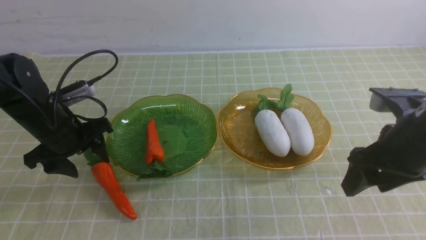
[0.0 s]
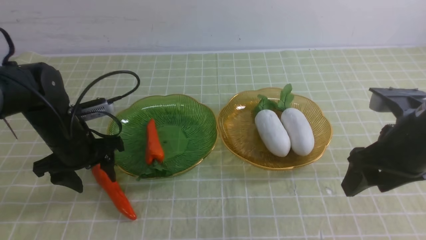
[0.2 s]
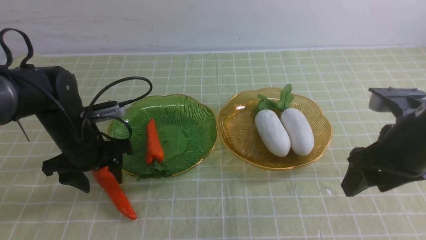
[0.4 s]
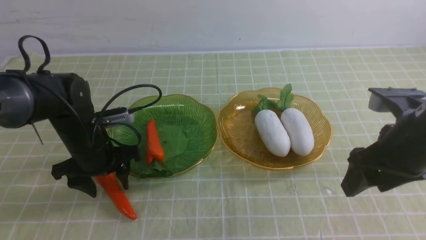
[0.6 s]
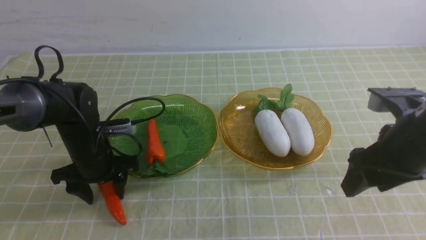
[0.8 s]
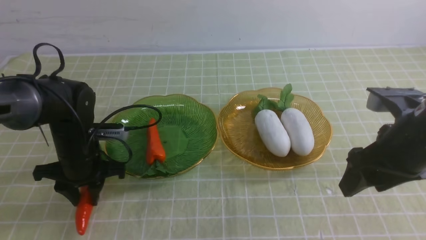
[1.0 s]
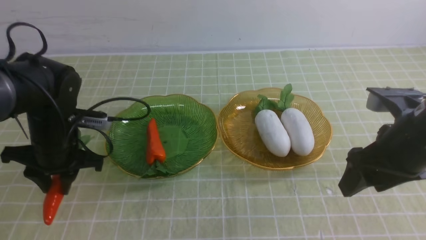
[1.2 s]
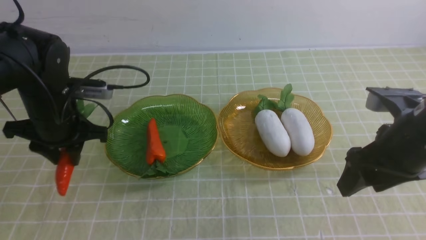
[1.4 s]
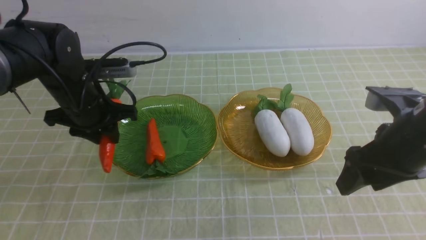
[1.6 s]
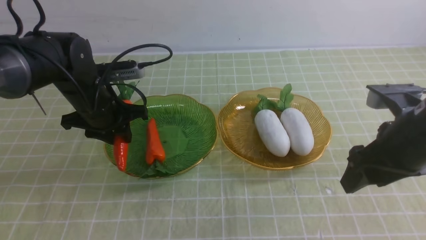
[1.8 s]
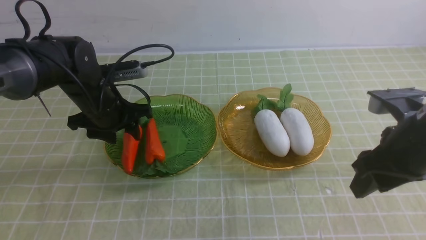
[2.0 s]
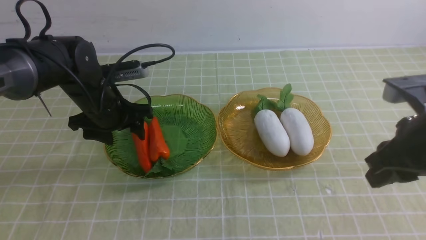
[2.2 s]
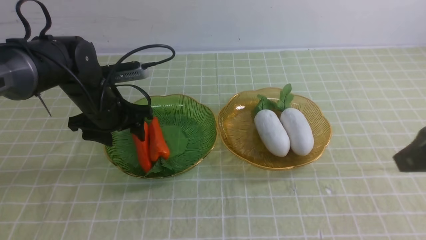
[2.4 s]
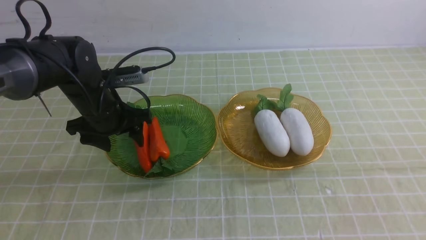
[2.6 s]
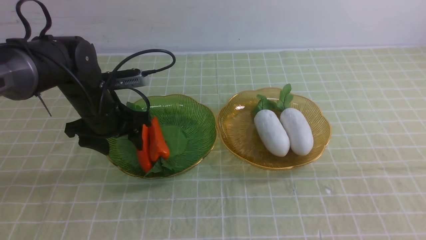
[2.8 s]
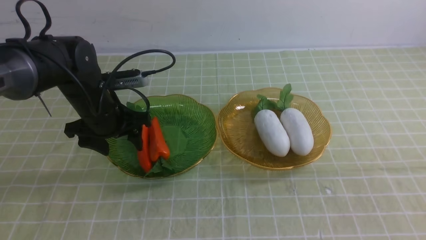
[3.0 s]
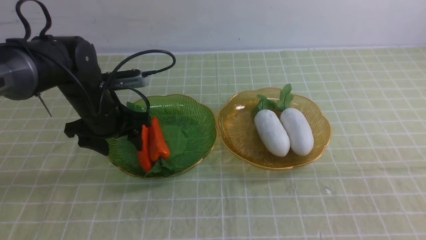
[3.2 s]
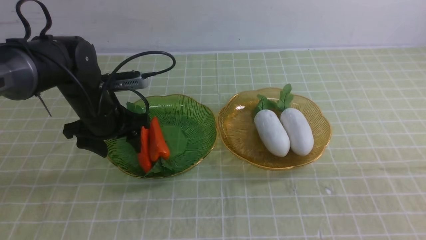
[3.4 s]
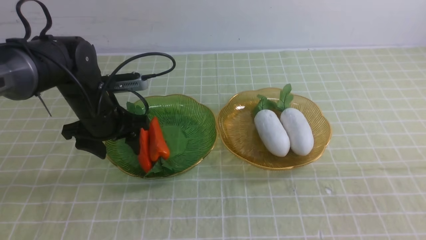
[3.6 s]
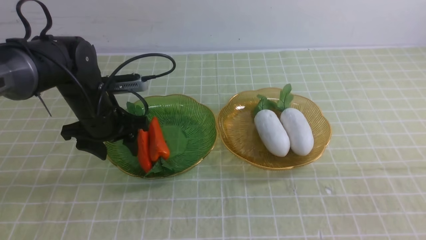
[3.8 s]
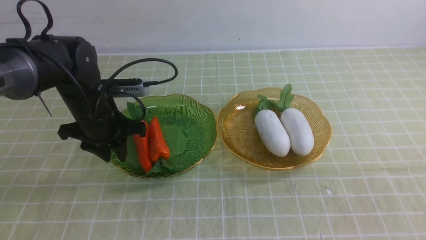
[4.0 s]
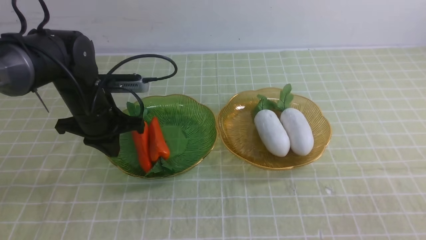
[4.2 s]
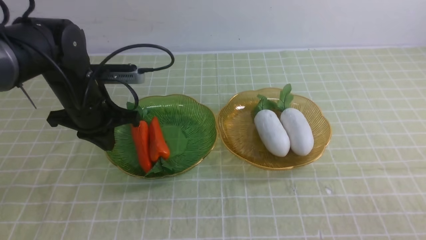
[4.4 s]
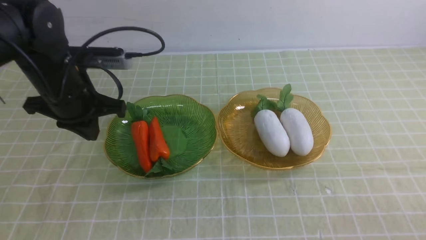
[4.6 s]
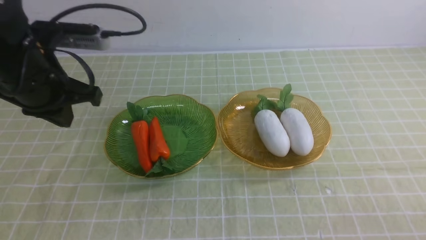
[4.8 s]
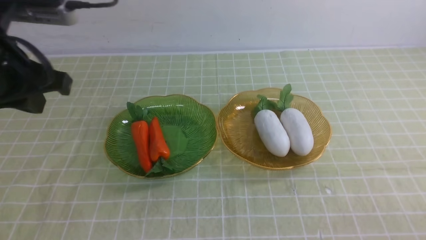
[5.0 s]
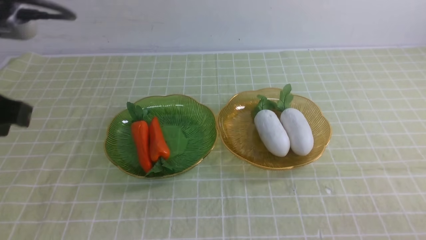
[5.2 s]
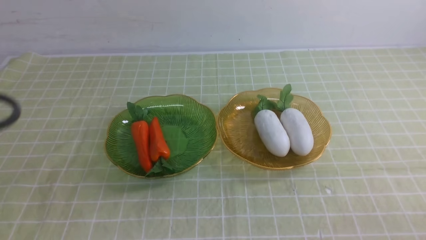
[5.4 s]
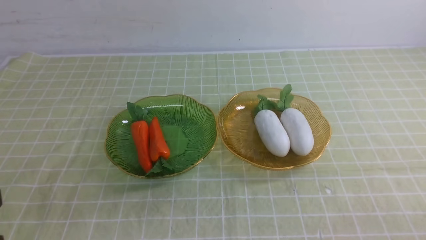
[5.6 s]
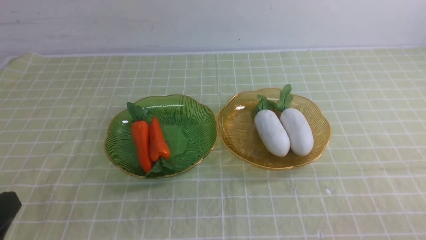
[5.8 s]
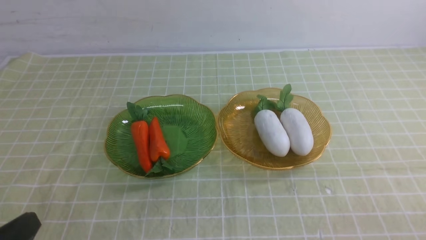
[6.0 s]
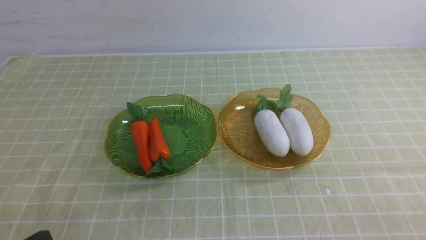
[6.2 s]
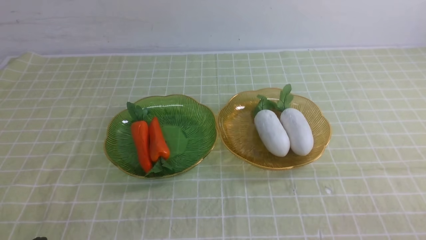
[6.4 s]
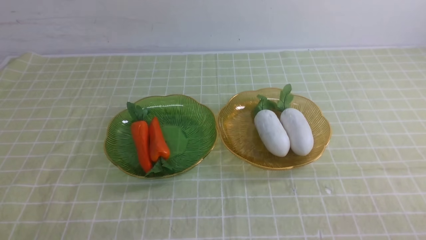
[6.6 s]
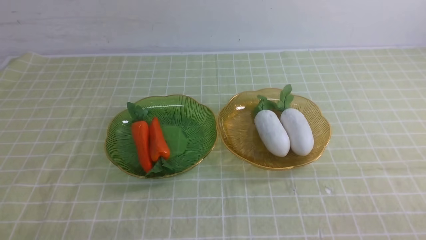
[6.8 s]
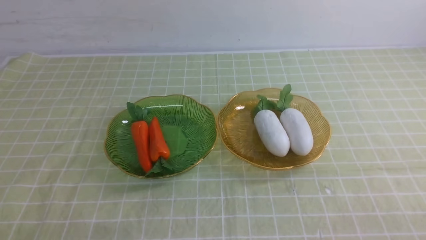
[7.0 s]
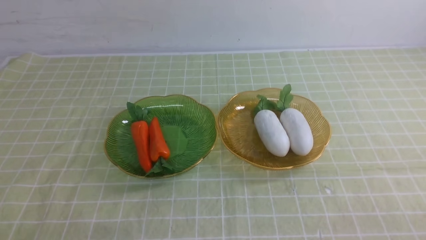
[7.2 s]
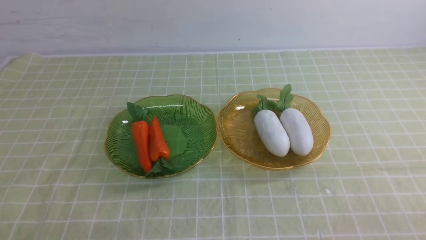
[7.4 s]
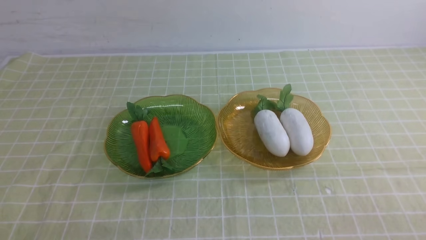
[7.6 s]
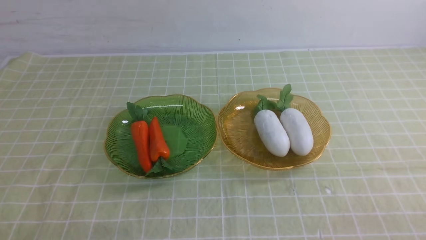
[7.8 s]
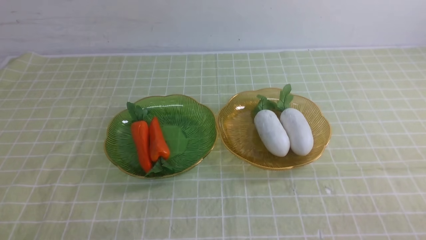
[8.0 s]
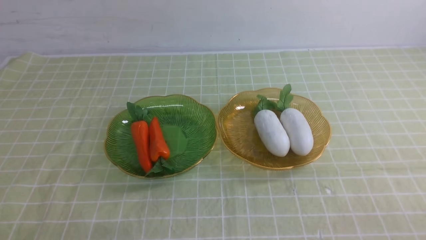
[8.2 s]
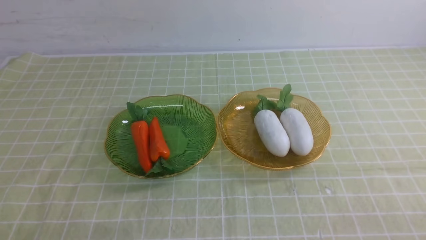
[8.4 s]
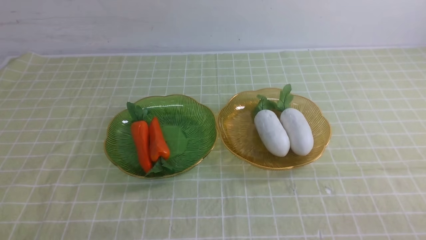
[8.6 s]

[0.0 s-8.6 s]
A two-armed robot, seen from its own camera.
Step, 0.0 to 3.4 s: use the left arm to grab a carrot and put it into the left plate.
0.0 to 1.4 s: The left gripper closes its fingers.
1.4 to 2.8 s: The right gripper shifts roughly 20 cm backward and upward, and closes its fingers; the left gripper changes place by some 5 cm, and opens its fingers.
2.8 to 4.4 s: The right gripper travels downward by roughly 15 cm, while the left gripper closes.
4.4 to 5.8 s: The left gripper is displaced backward by approximately 30 cm.
5.8 to 7.2 s: The left gripper heads downward, covering some 10 cm.
7.2 to 8.6 s: The two grippers keep their place.

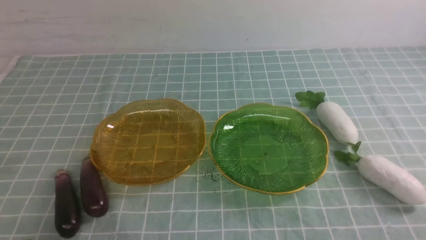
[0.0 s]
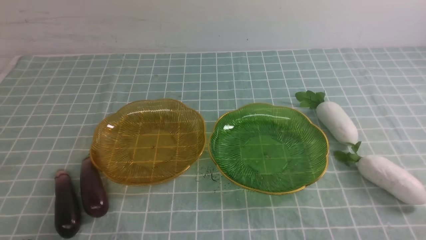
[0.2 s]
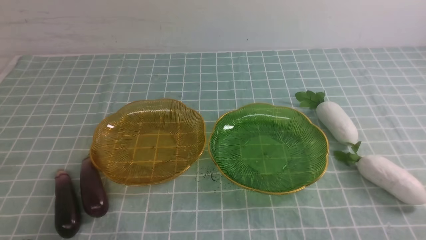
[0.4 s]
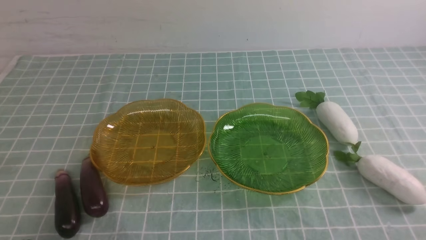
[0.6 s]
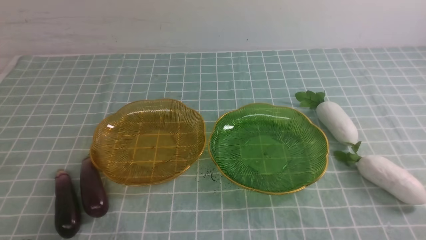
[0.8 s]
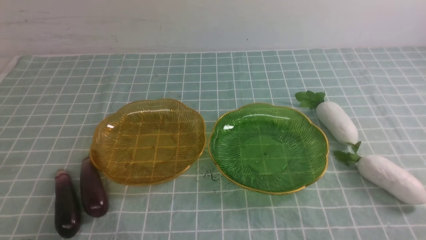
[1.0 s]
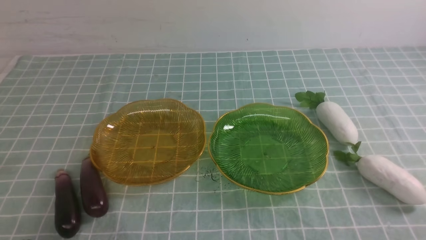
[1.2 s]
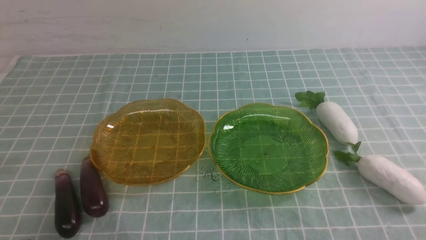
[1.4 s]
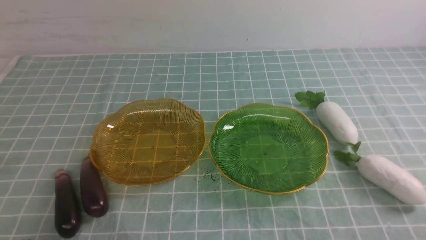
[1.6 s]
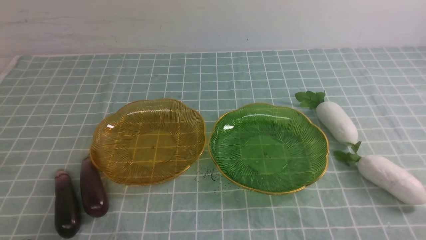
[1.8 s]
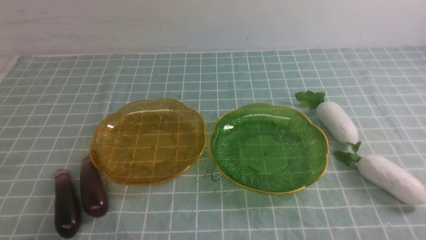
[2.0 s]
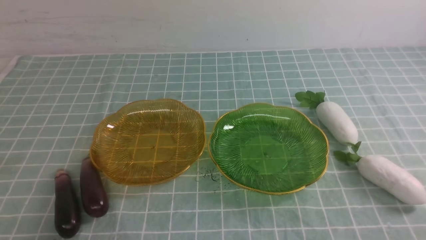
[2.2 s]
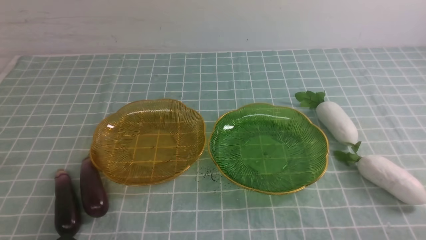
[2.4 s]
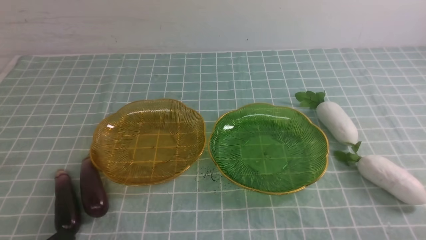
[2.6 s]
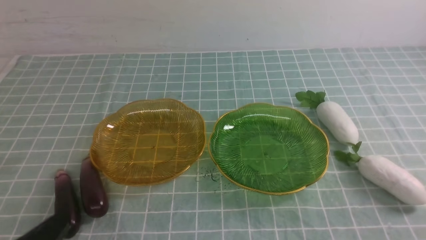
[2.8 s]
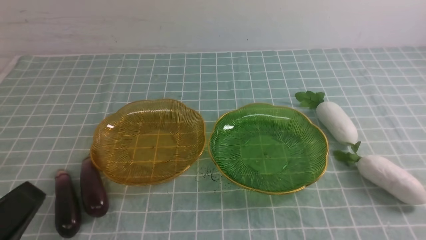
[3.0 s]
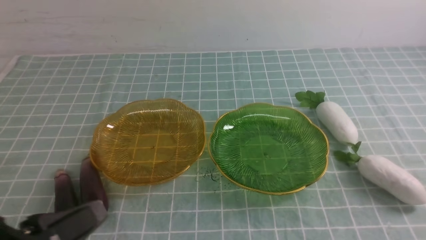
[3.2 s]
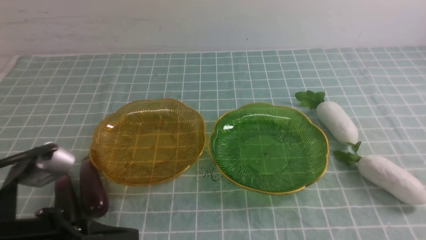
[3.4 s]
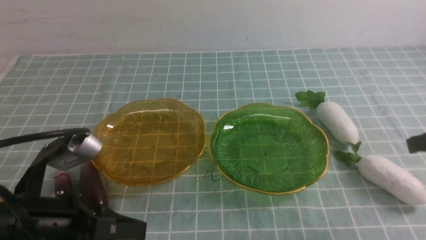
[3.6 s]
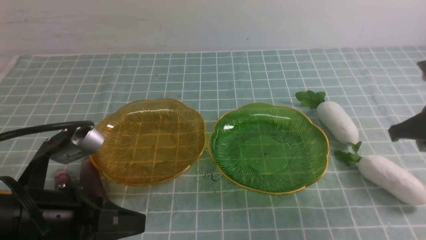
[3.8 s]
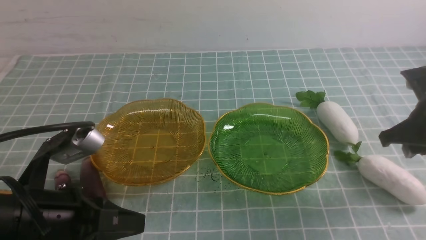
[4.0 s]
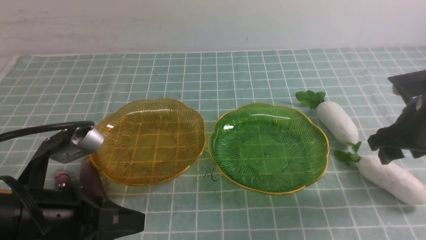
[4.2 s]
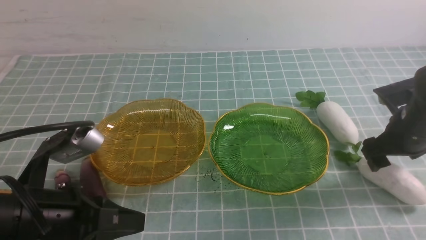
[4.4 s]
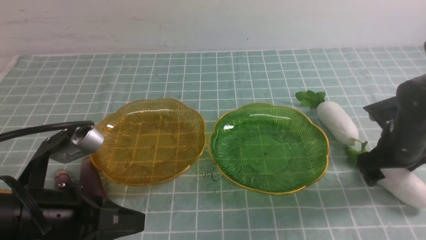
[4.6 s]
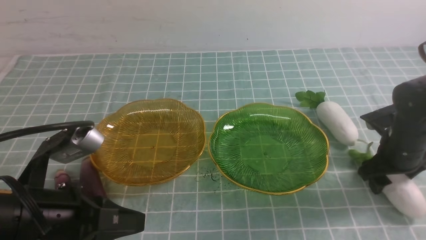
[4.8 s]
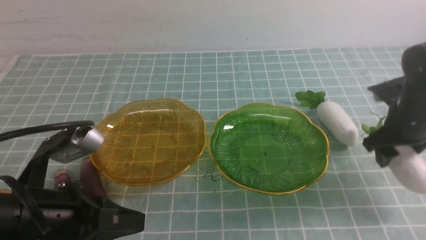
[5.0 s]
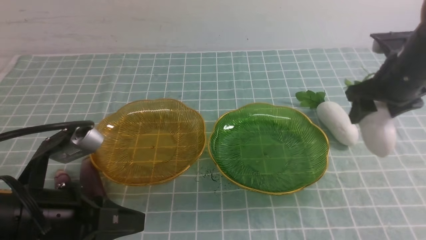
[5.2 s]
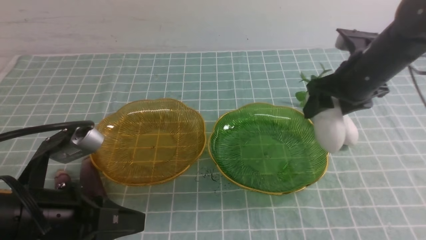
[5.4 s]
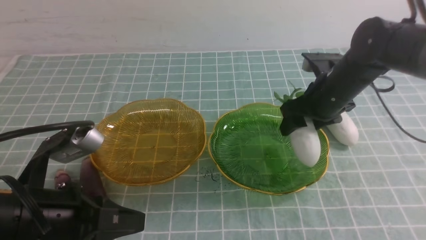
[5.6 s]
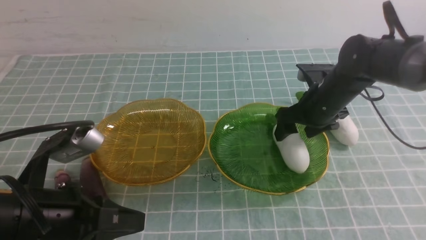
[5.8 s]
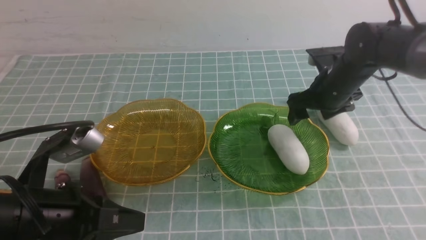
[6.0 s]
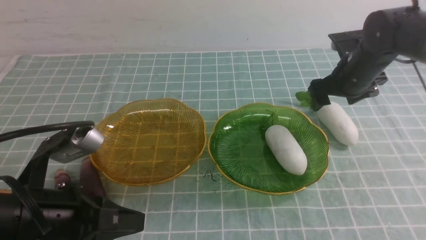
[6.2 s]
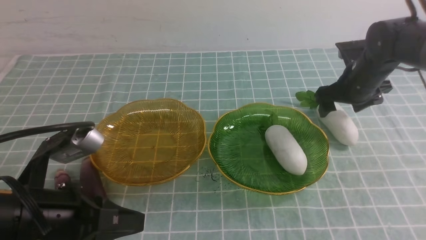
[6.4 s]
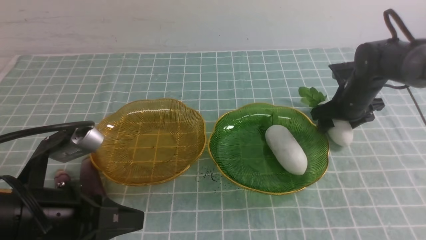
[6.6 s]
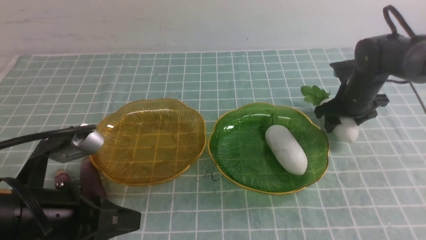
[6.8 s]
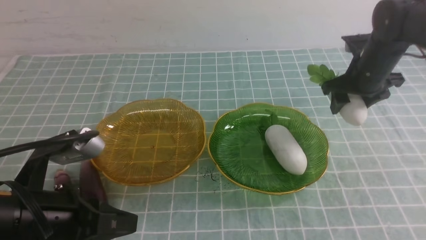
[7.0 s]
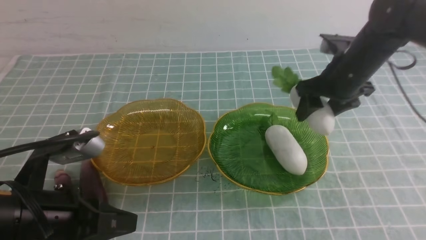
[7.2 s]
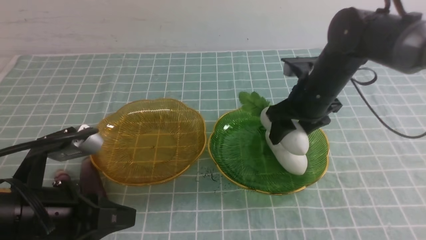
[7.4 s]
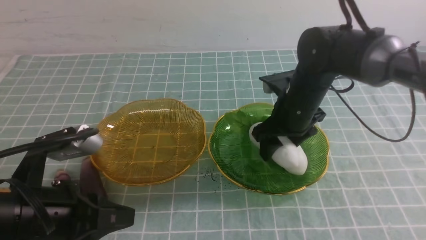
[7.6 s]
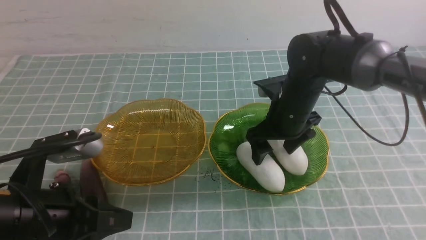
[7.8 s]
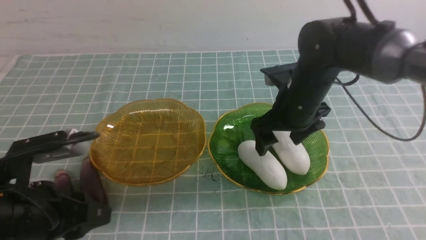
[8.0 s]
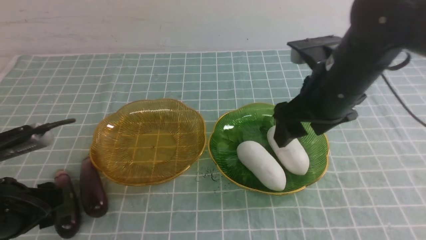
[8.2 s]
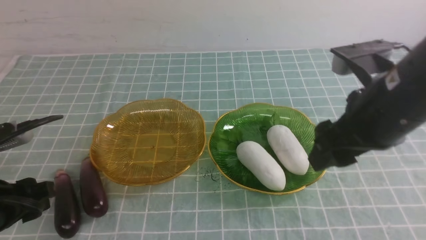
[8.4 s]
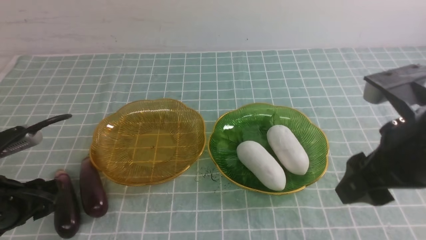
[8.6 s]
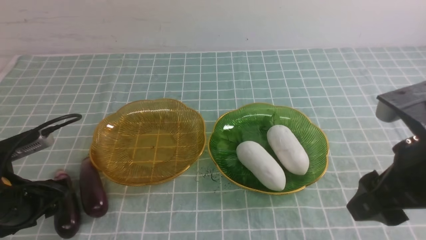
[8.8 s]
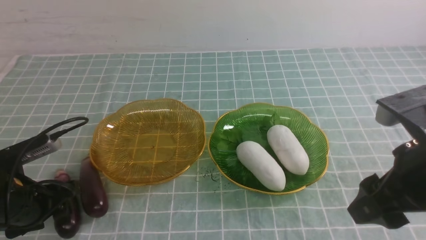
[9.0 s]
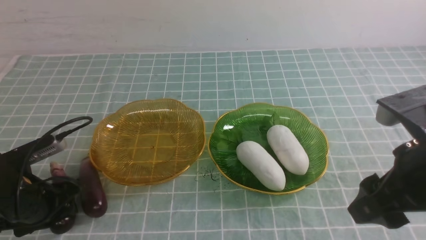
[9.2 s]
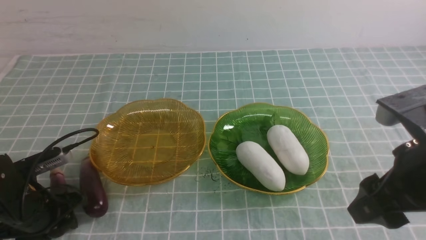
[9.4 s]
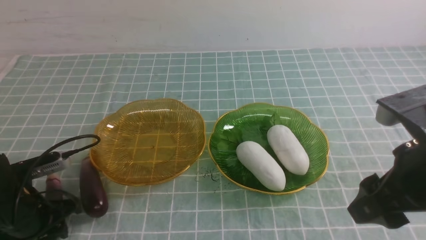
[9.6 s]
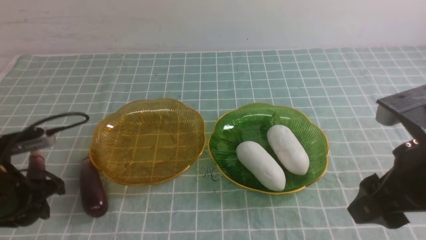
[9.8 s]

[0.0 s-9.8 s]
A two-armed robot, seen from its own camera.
Step, 0.0 to 7.8 s: use the right arm to grab a radish and put it into the right plate.
0.0 to 1.4 s: Both grippers stay about where they are.
2.8 to 4.2 s: The right gripper goes about 25 cm forward, and opens its fingers, while the left gripper goes approximately 10 cm forward.
4.2 to 5.6 s: The right gripper is displaced to the left and forward by some 15 cm.
7.0 to 8.4 s: The right gripper goes approximately 25 cm backward and upward; the left gripper heads to the left, covering some 10 cm, and opens.
8.4 to 9.8 s: The right gripper shifts by some 5 cm. Meanwhile the left gripper travels forward by approximately 5 cm, and reaches roughly 10 cm downward, then returns.
